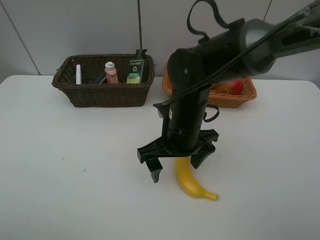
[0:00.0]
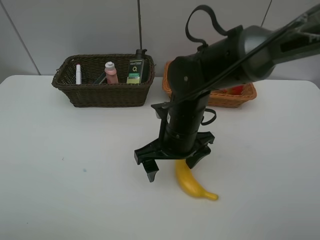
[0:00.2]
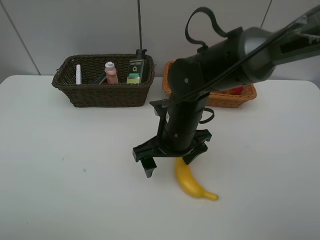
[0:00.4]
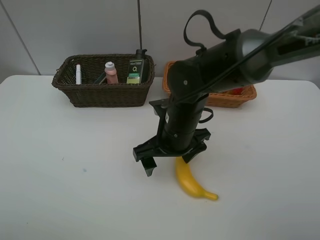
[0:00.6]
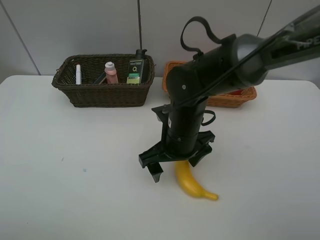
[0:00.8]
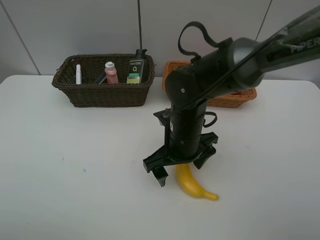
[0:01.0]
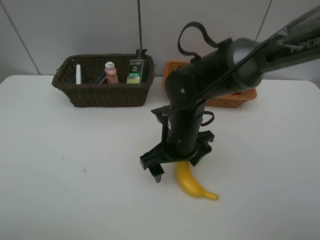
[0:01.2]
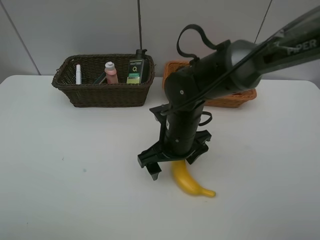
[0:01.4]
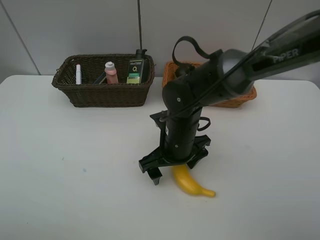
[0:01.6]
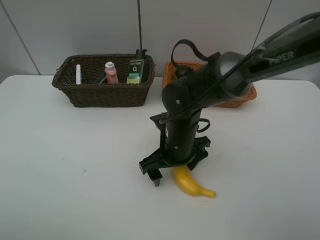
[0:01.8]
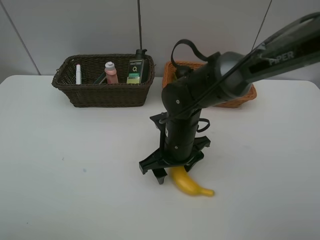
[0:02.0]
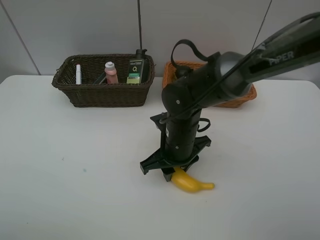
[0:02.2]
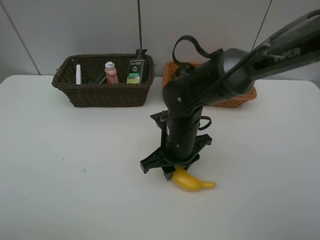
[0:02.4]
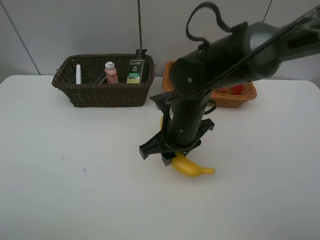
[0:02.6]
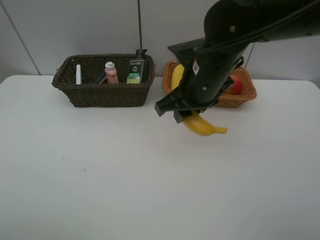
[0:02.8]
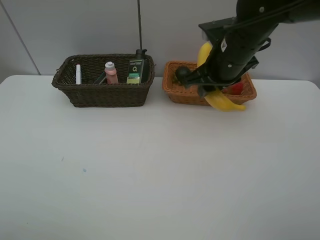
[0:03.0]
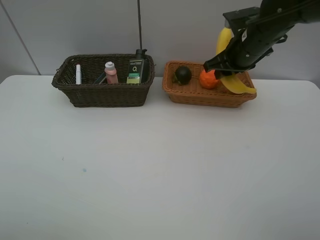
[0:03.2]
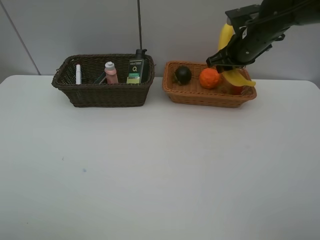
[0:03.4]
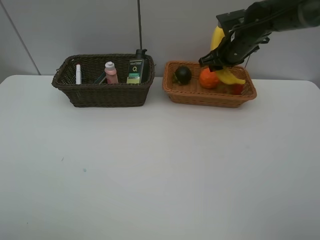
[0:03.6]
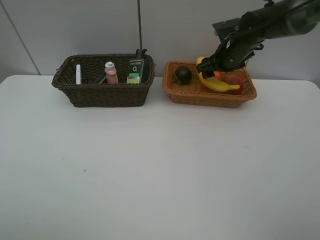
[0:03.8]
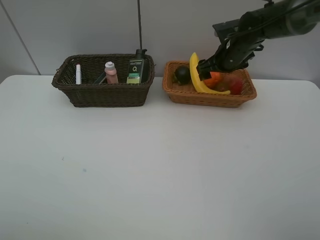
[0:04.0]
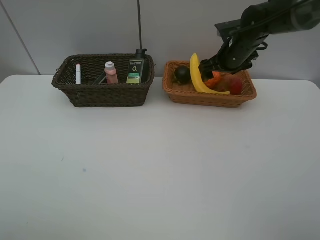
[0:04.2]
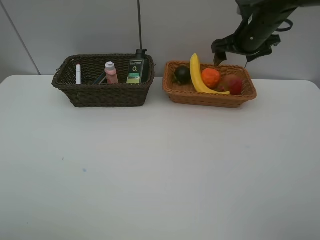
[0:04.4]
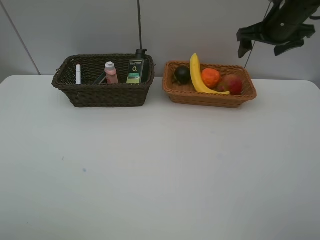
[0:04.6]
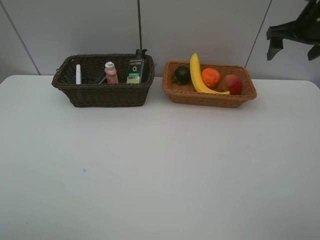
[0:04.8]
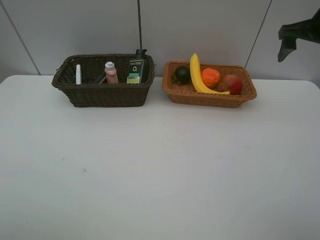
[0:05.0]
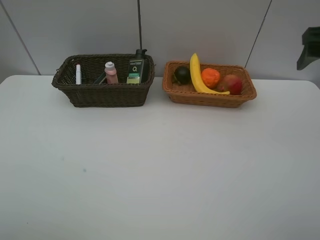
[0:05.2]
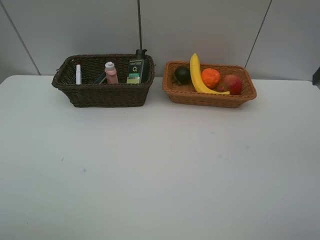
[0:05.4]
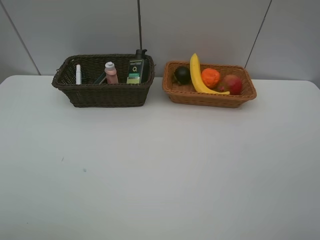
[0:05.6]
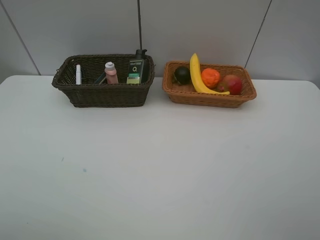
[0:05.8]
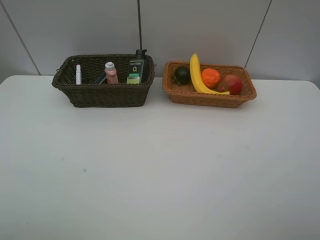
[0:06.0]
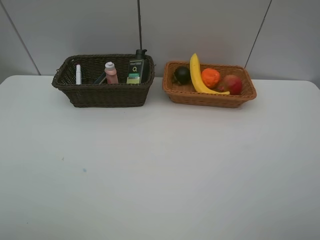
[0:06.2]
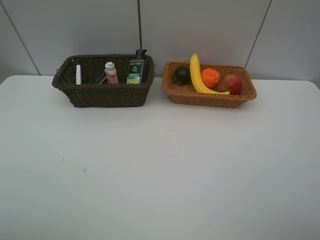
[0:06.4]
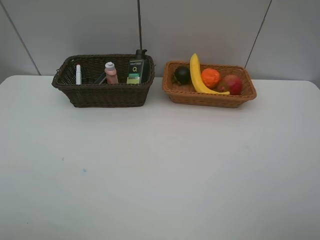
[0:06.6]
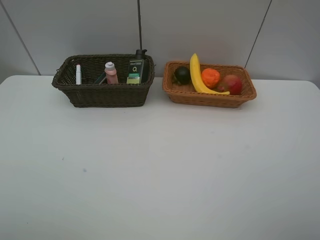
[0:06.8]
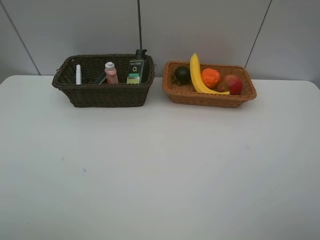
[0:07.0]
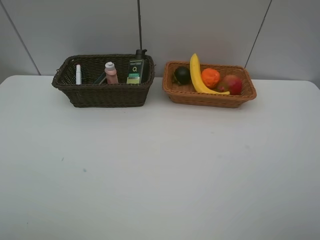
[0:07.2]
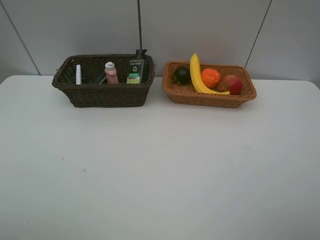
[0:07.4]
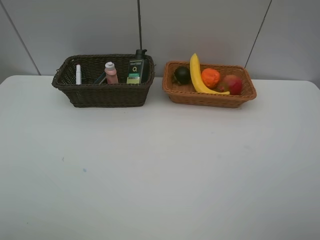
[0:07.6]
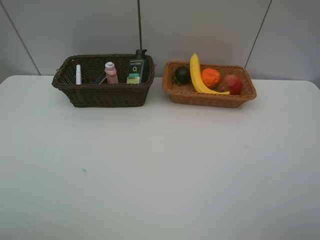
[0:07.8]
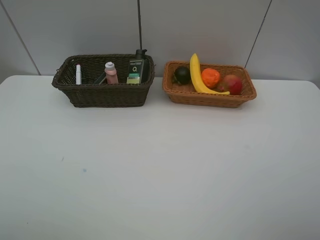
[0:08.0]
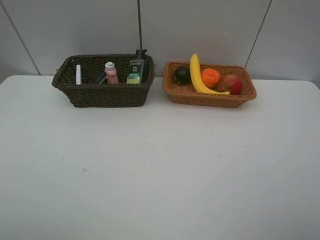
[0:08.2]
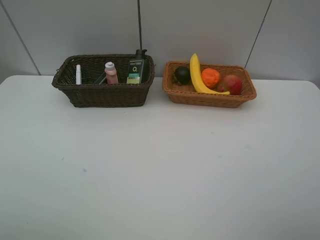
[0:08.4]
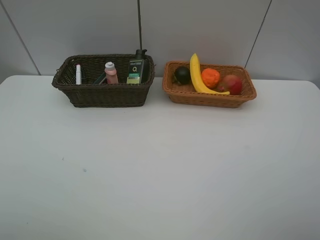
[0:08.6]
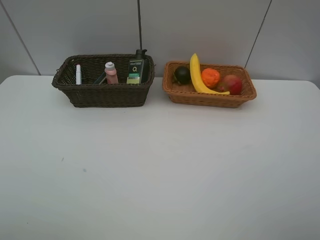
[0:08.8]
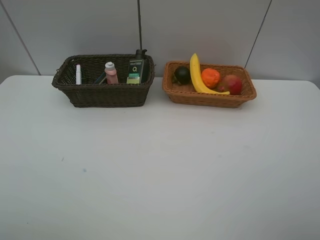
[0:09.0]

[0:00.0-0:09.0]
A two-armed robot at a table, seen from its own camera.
Task of the whole recording: Place multiple objects separately in different baskets.
Step, 0:00.0 to 0:02.4: Pick up banana with right gripper.
Step, 0:02.6 to 0:04.2: Place the banana in the light basket with right gripper.
0:00.0 to 0:01.6: There are only small adjustments of the grippers.
0:01.6 to 0:03.0: The right gripper travels upward, to the right and forward by approximately 20 cm, and closes its fingers.
0:03.0 to 0:04.4: The right gripper goes approximately 10 cm forward and to the right, and opens its fingers.
0:04.4 to 0:06.0: The right gripper shifts roughly 40 cm backward.
0:07.6 to 0:09.0: Both grippers stay about where they are.
